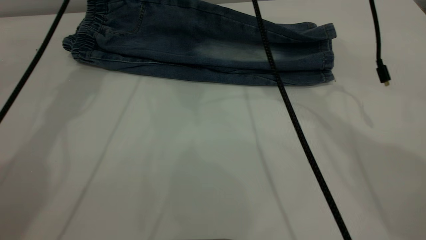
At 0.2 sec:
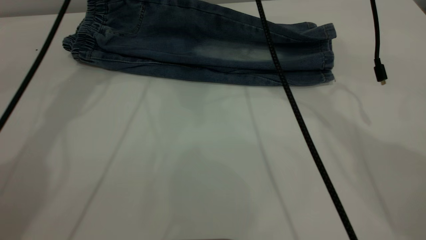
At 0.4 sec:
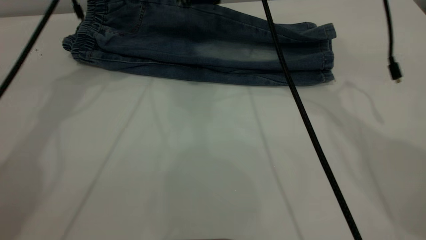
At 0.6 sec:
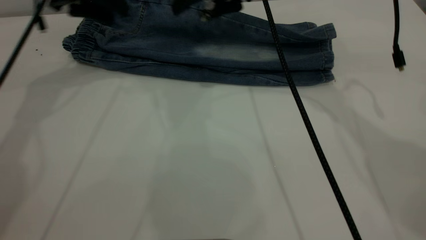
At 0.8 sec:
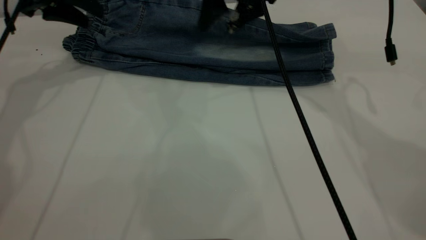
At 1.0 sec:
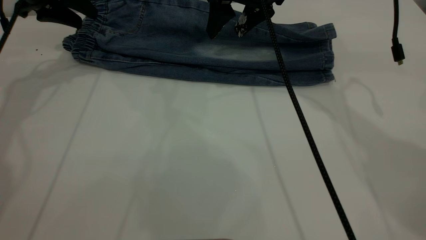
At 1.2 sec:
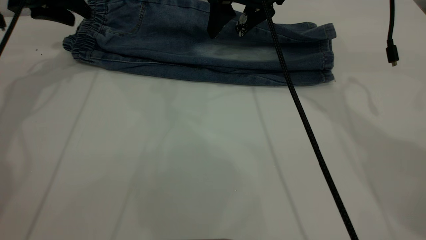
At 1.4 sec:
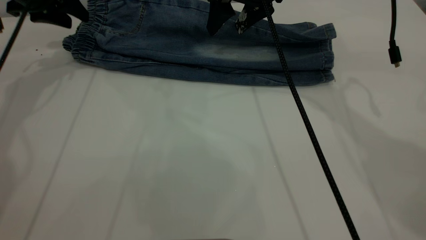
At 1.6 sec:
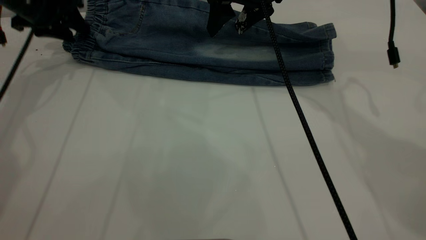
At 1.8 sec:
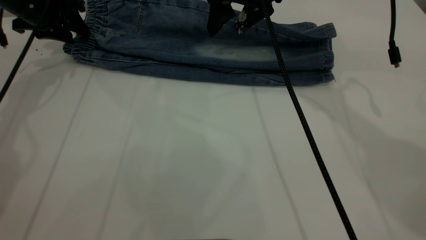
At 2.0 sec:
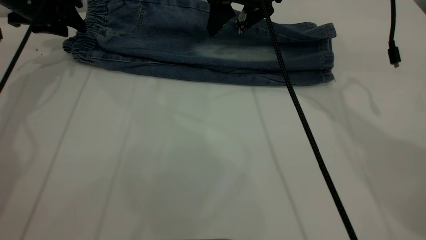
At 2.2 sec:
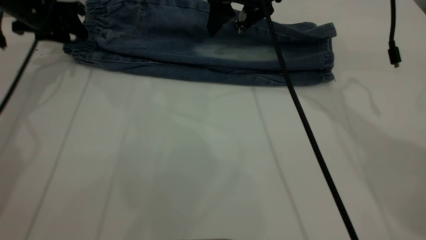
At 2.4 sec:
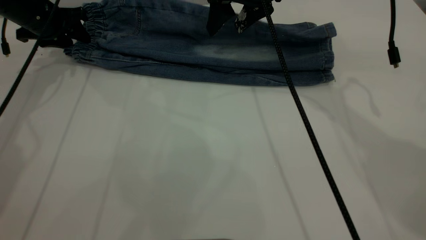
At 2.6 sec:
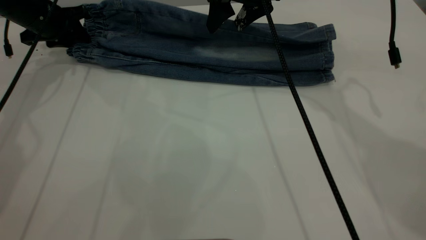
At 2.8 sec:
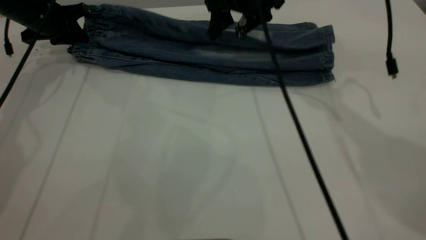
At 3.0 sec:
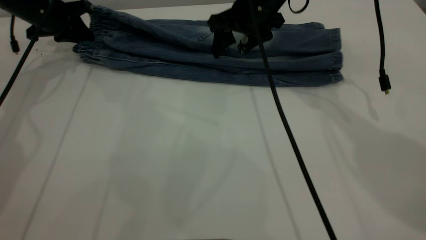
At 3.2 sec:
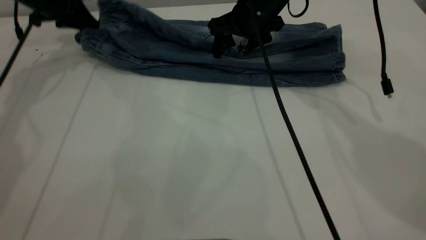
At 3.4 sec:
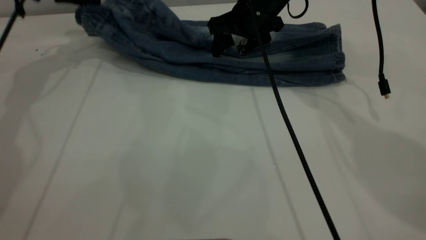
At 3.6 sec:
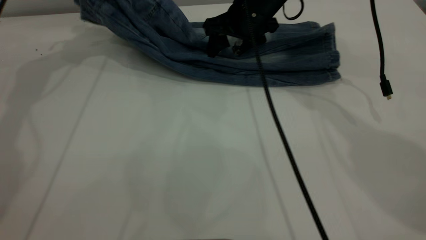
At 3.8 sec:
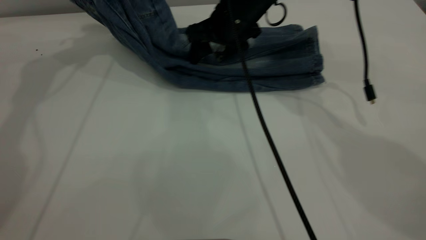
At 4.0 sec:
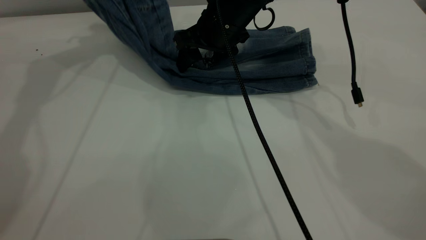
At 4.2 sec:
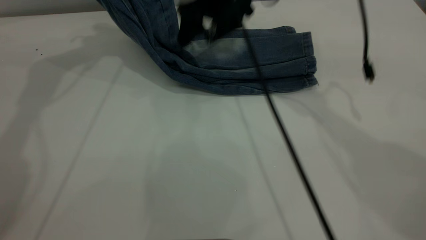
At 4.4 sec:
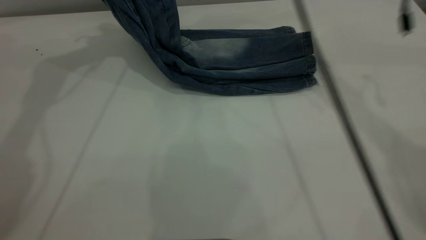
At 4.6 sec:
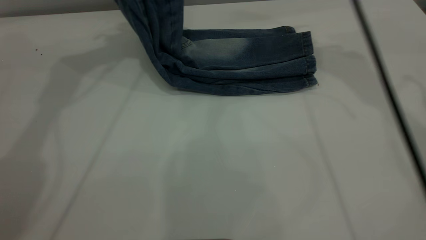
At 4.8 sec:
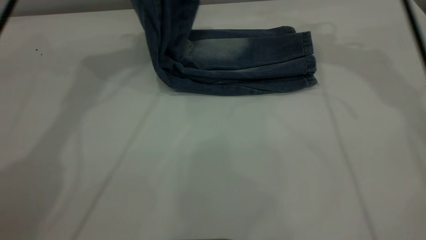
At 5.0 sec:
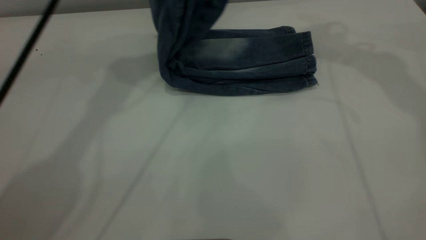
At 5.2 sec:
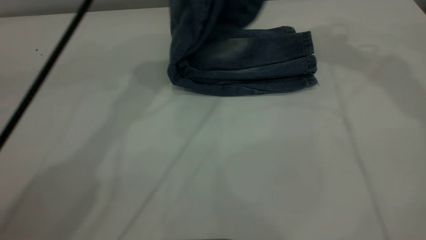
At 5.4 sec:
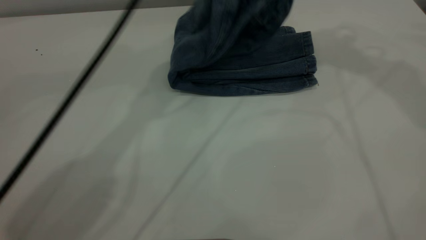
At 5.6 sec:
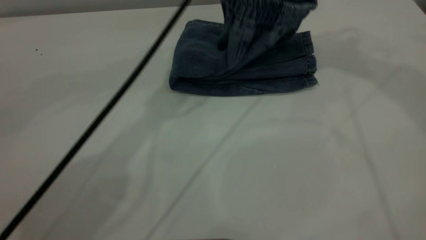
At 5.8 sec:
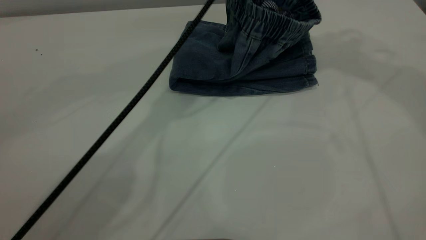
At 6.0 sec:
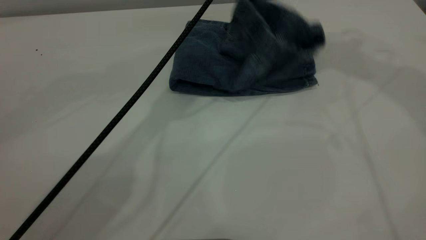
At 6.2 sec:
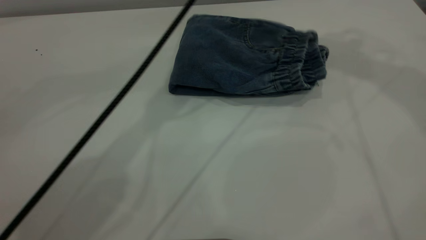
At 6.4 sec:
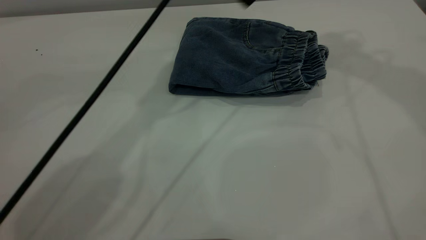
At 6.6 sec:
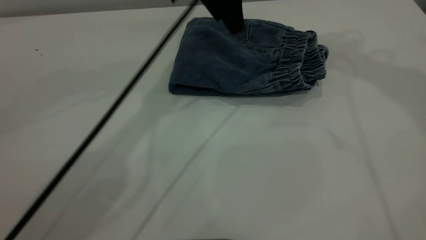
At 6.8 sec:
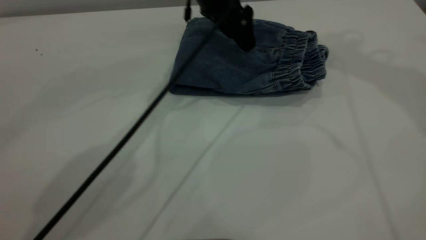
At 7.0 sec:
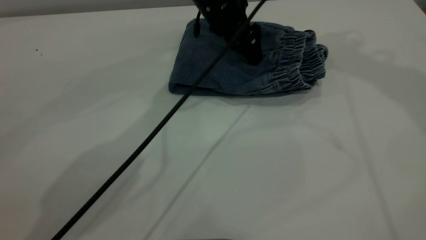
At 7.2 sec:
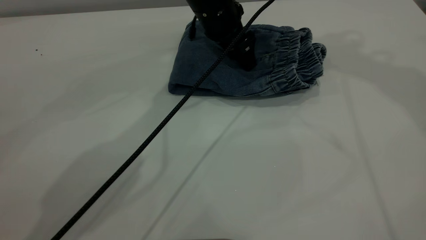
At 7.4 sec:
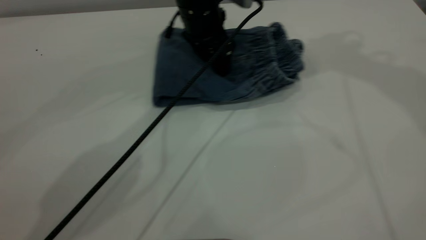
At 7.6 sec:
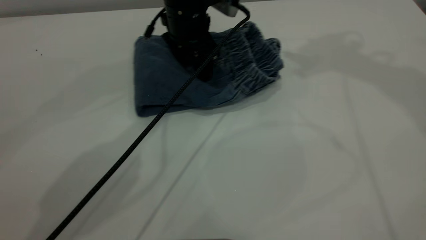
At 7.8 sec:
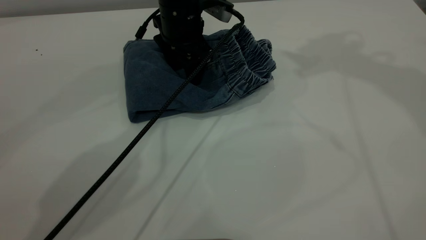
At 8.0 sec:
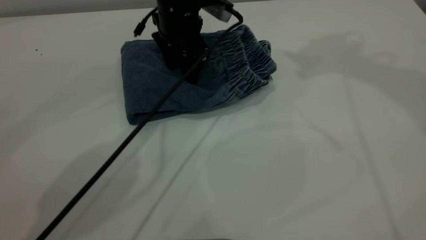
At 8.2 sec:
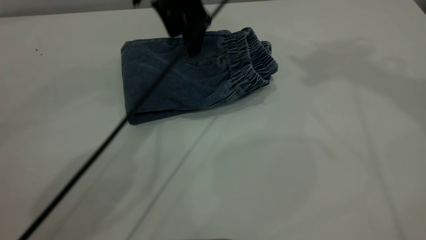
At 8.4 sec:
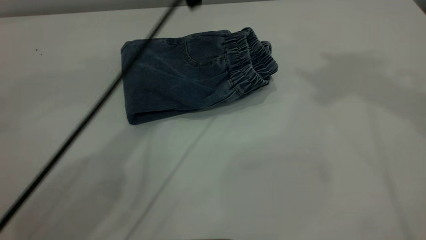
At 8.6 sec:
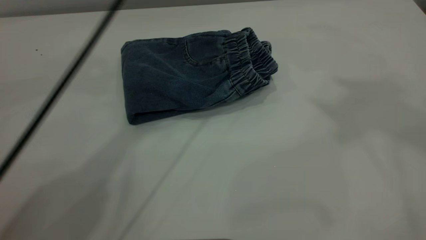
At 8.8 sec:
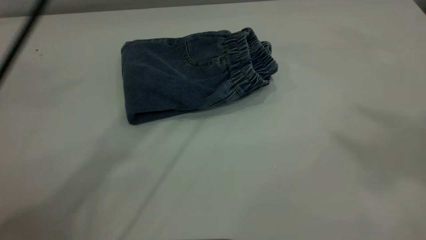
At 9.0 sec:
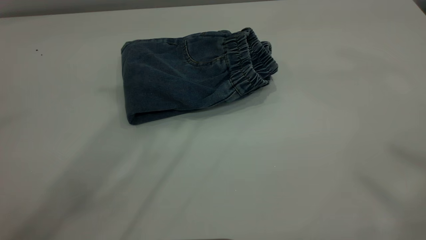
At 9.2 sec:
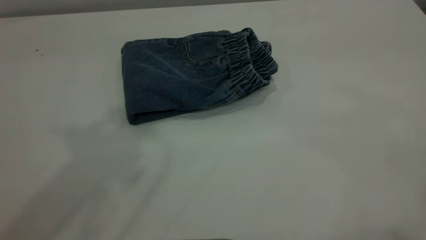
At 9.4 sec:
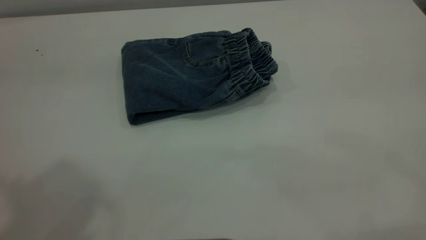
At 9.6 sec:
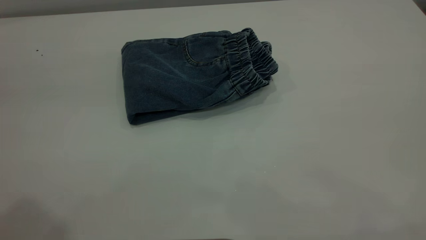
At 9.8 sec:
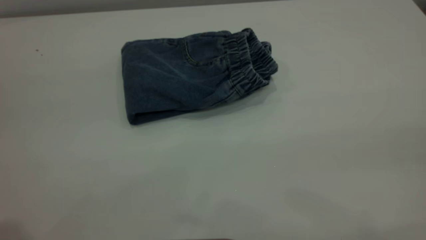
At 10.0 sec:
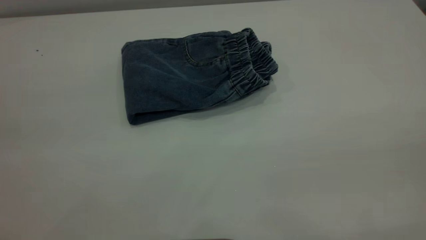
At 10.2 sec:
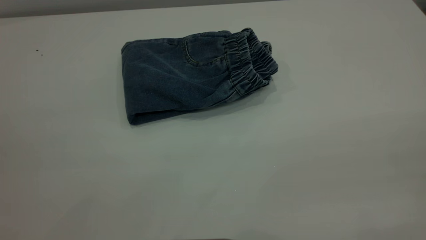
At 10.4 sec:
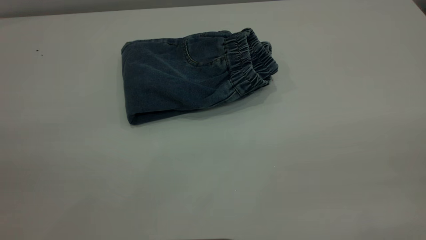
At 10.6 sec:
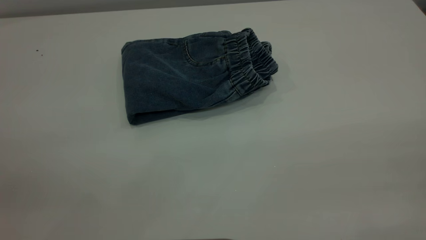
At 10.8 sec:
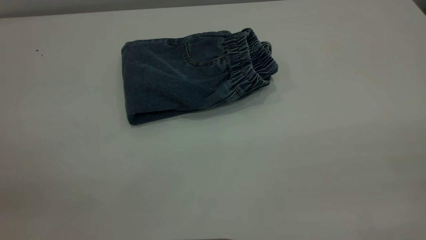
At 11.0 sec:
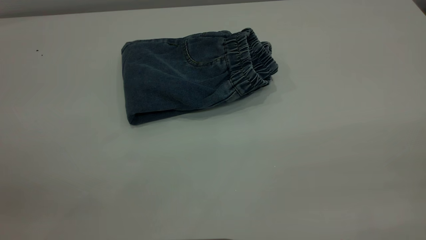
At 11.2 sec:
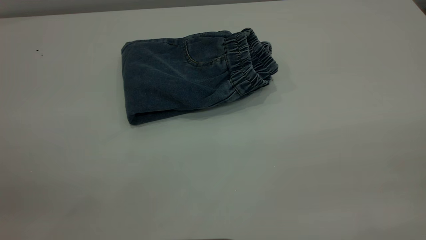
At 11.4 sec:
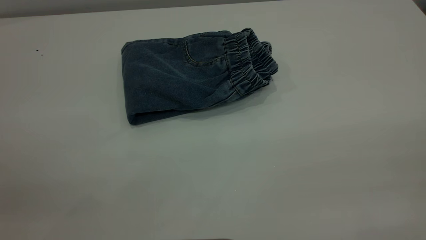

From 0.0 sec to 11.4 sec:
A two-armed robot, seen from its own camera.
Step, from 0.0 sec to 6.4 sec: Fold the pants from left to right.
From 0.0 sec to 1.4 sec: The left gripper goes roughly 10 cm to the left.
From 1.4 sec to 2.8 sec: The left gripper heads downward, covering some 5 cm, and closes.
From 2.8 sec to 4.2 sec: The left gripper moves upward, some 20 cm. Meanwhile the right gripper shifts by about 5 cm.
From 4.2 sec to 5.6 sec: The left gripper goes about 25 cm to the right. The right gripper heads upward and to the right, covering roughly 30 cm.
From 5.6 sec to 7.2 sec: The left gripper moves downward, some 15 cm, and opens up.
From 7.2 sec to 8.6 sec: The right gripper heads backward and upward, covering about 20 cm. Meanwhile the left gripper heads upward, covering some 25 cm.
From 8.6 sec to 10.0 sec: The left gripper is displaced backward and to the left by roughly 40 cm.
